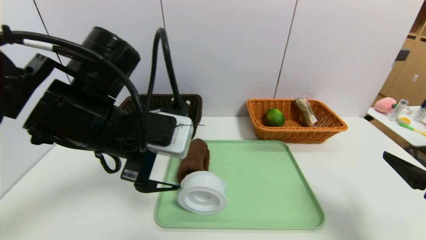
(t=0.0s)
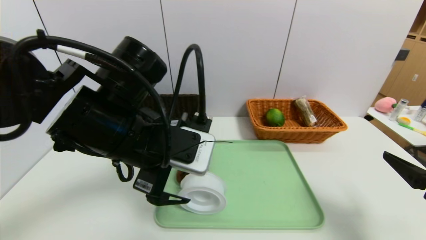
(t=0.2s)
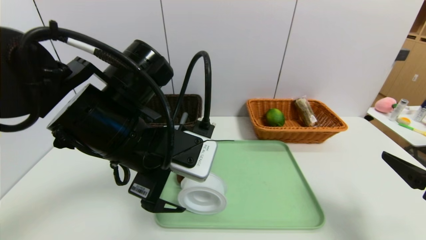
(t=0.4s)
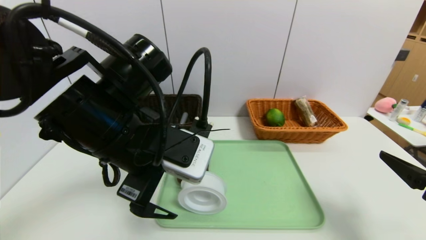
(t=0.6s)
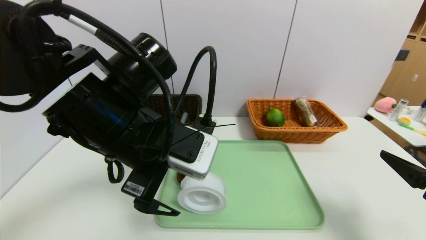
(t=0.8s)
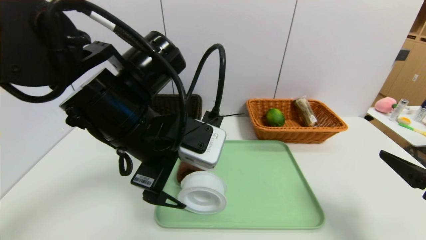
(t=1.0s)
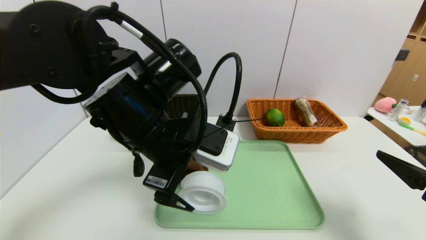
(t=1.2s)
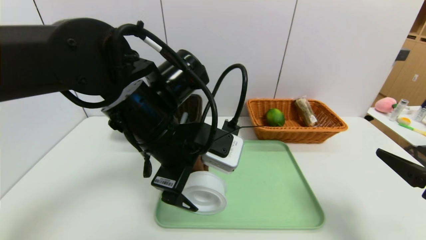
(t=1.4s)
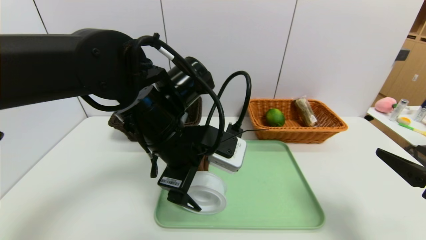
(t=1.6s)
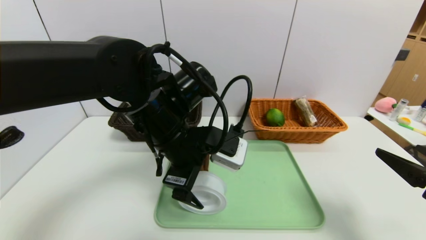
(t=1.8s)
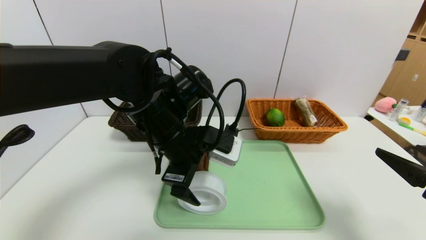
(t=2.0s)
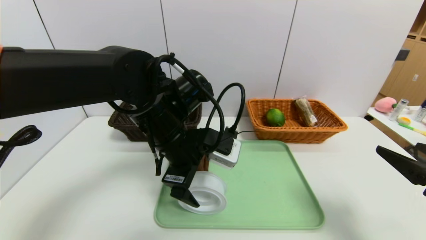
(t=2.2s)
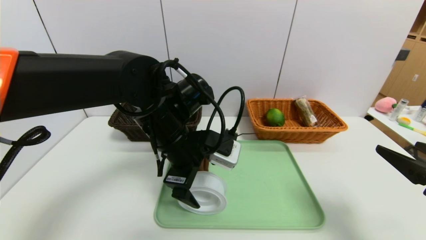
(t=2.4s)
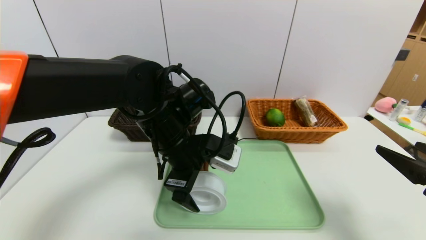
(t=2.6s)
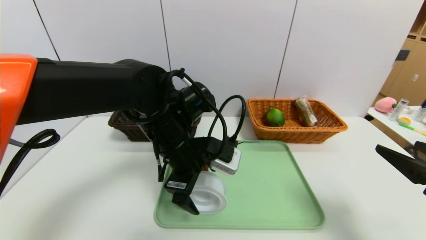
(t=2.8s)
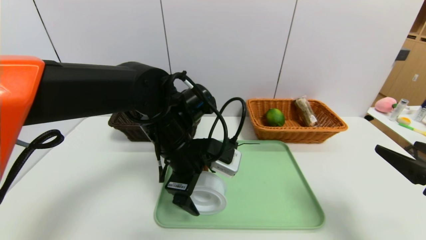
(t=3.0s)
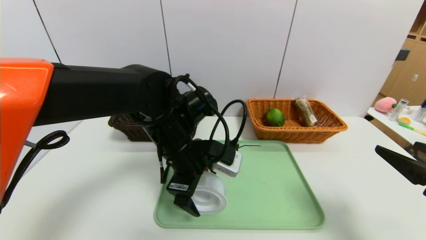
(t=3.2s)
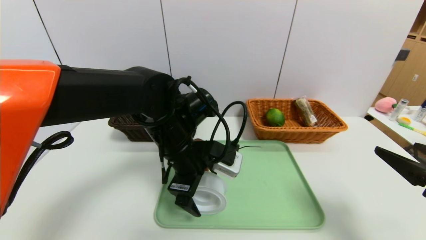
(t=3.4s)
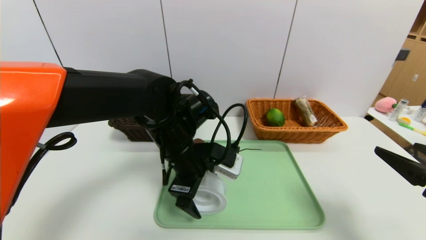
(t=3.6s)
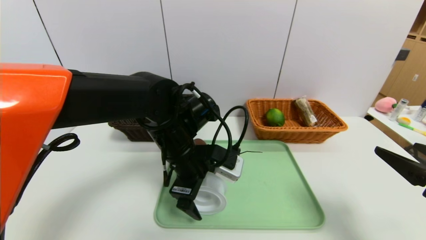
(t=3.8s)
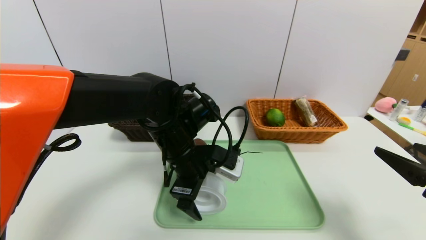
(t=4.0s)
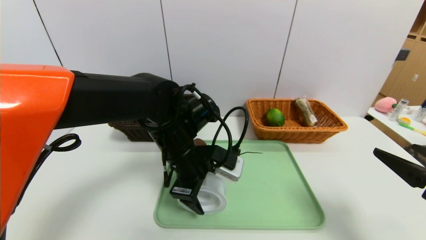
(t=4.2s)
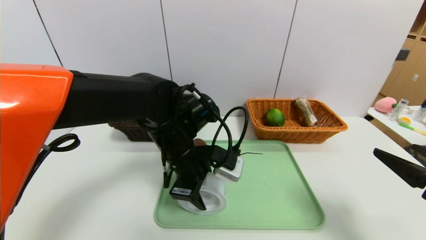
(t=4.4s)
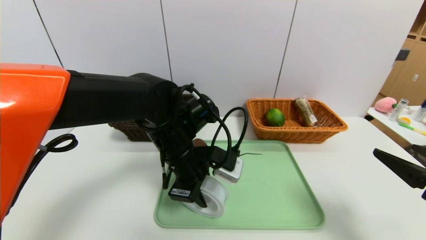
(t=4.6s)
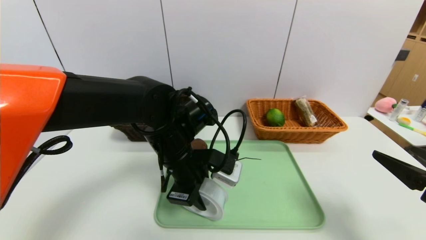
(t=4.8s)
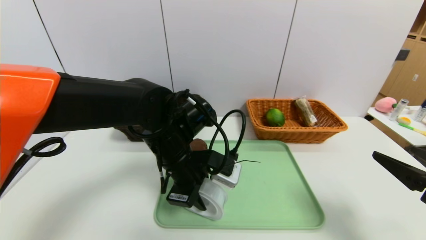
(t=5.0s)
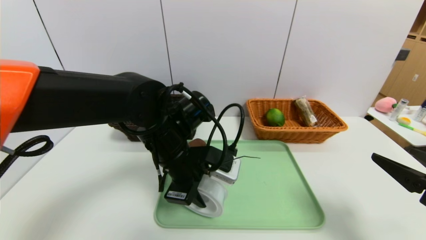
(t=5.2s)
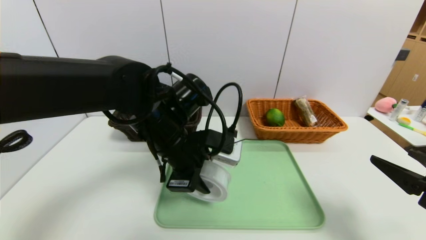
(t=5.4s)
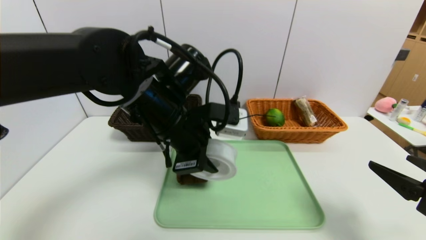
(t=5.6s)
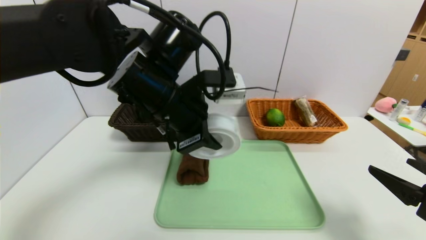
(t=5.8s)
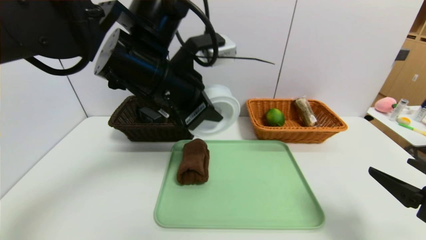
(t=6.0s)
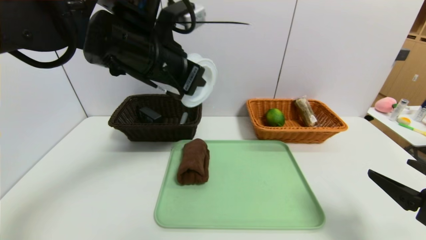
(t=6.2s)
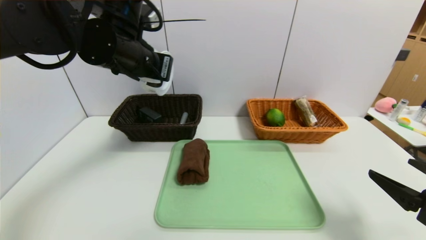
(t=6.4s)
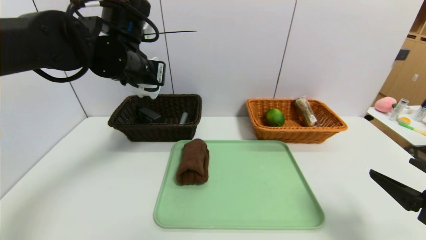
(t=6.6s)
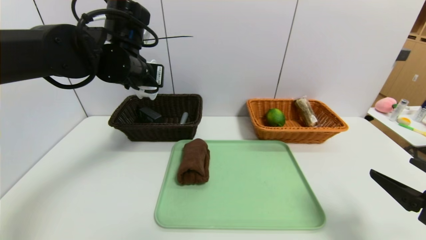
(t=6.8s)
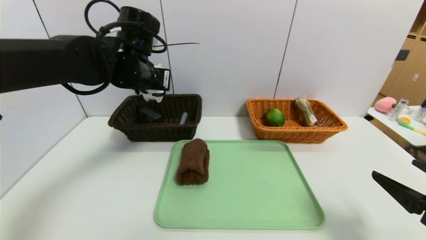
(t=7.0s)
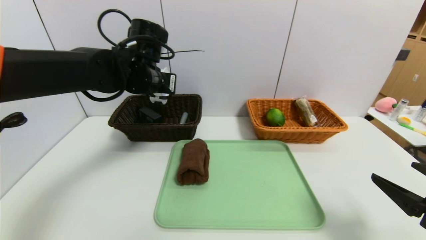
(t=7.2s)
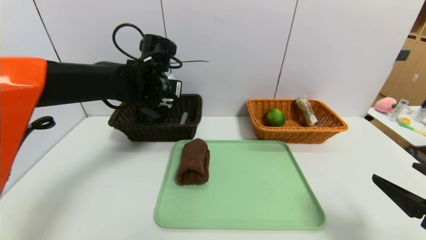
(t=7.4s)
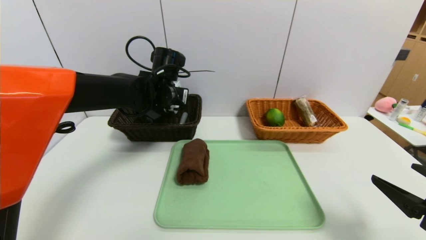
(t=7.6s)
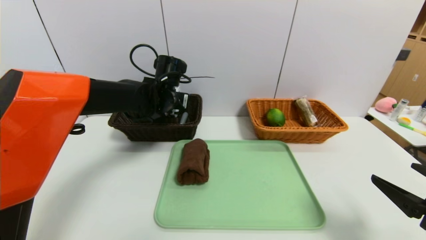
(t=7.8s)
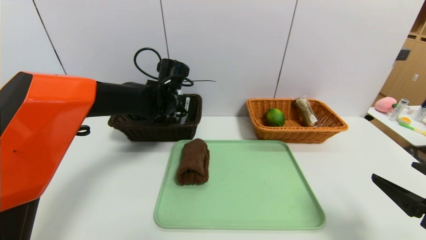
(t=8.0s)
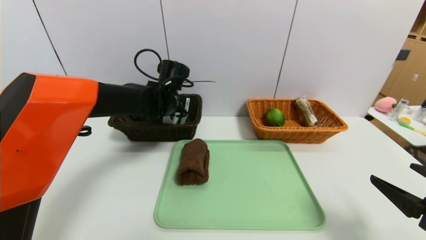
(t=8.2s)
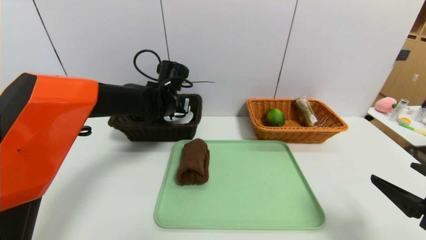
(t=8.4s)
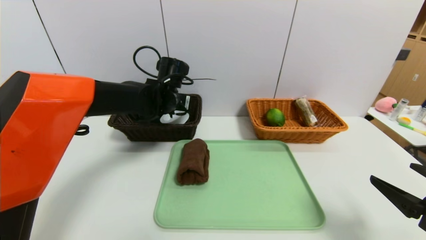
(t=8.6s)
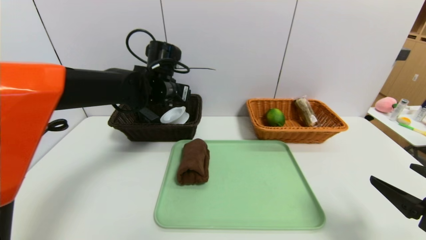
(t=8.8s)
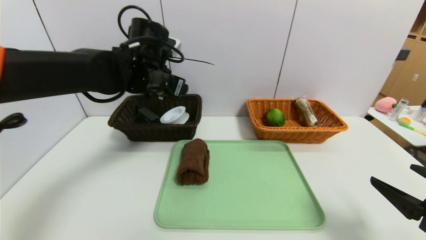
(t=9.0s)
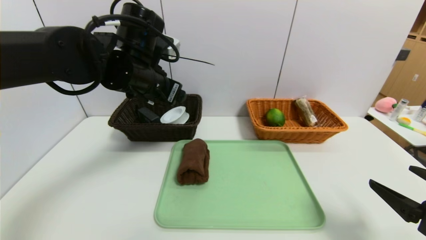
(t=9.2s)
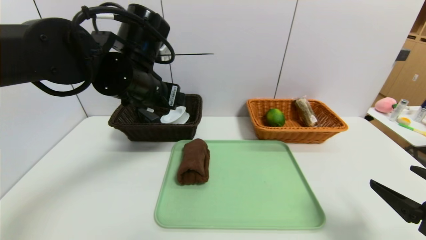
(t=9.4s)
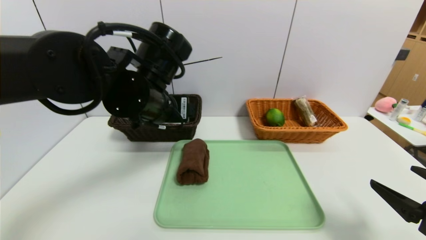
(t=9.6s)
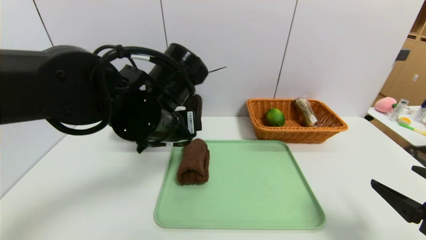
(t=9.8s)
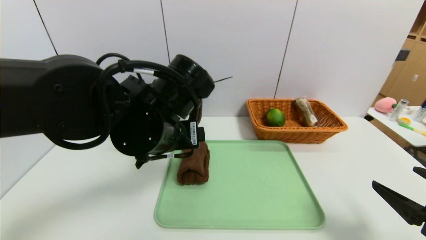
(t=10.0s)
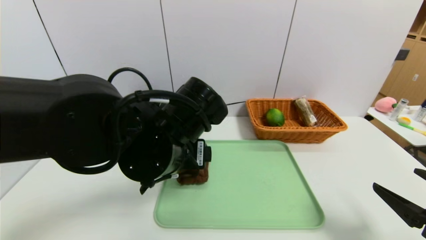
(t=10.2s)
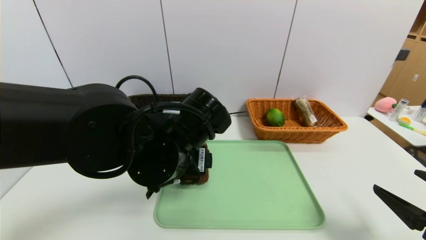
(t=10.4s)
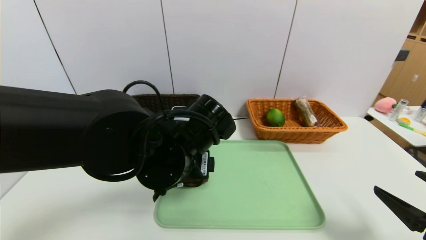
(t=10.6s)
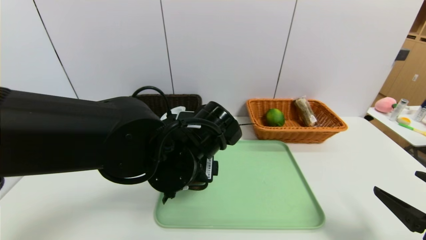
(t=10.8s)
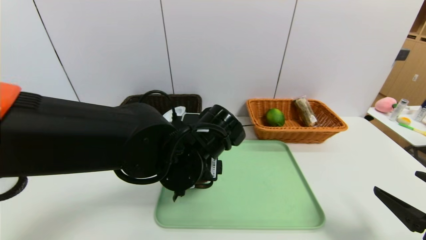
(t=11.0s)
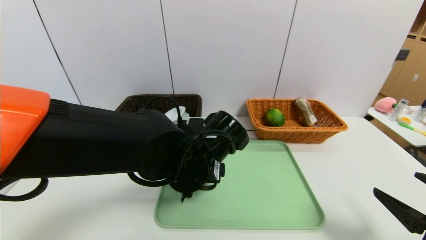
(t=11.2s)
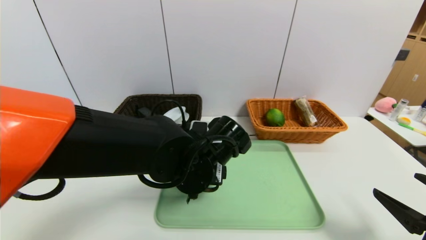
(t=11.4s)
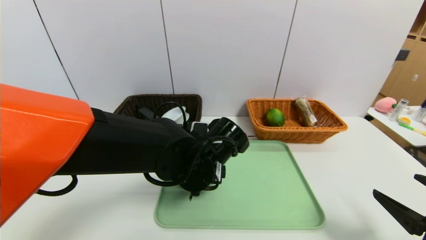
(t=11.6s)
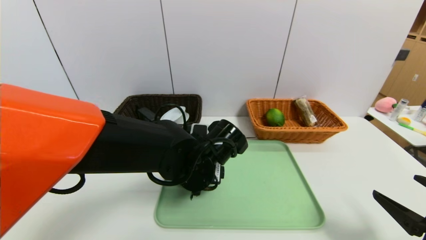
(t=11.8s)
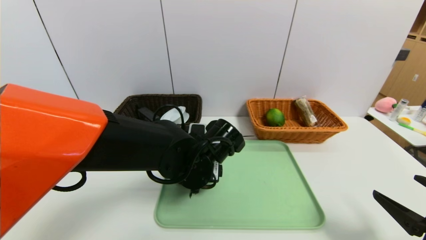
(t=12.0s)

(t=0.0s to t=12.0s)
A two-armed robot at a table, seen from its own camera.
Task of the whole recording: place the food in the right basket with the right gripper, and place the non food items in the left basket with the left gripper.
Step, t=0.0s - t=8.4s: Grasp the tape and put it in the left basket.
t=0.0s - t=1.6s: The left gripper shifts some 5 cm to the right.
t=1.6s - t=3.0s: The left gripper changes place by roughly 5 cm.
t=3.0s - t=4.4s: The left gripper closes its fingers.
t=4.4s - t=6.0s: The left gripper travels upward by roughly 15 cm.
t=6.0s - t=7.6s: The left gripper travels forward and downward by approximately 15 cm.
t=7.6s - t=9.0s: The left gripper shifts some 5 cm upward, and opens its fingers.
t=9.0s - t=10.4s: The left gripper shifts some 20 cm backward, to the right and downward.
t=10.4s - t=12.0s: The left gripper goes approximately 5 cm downward.

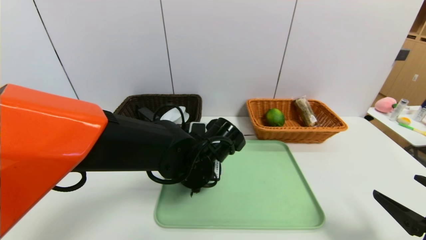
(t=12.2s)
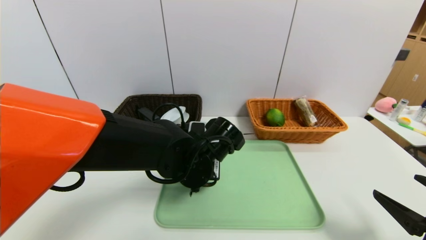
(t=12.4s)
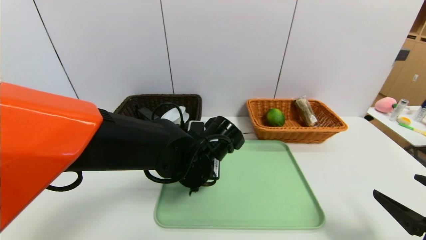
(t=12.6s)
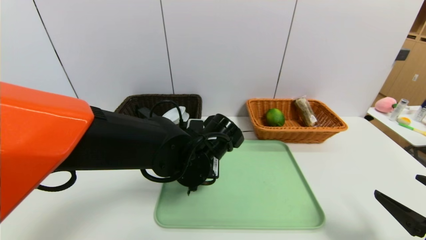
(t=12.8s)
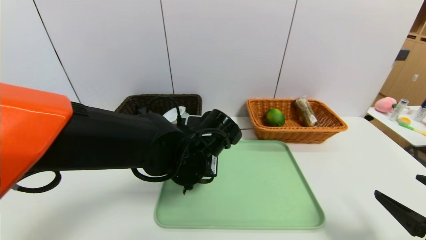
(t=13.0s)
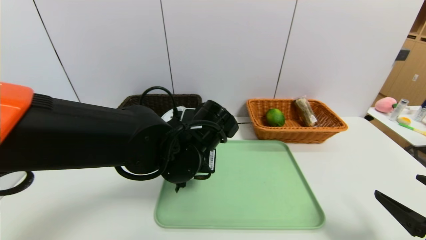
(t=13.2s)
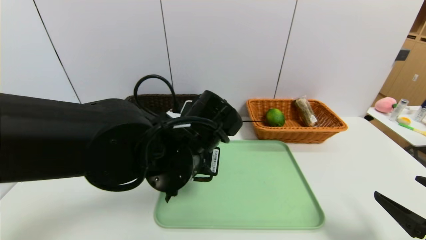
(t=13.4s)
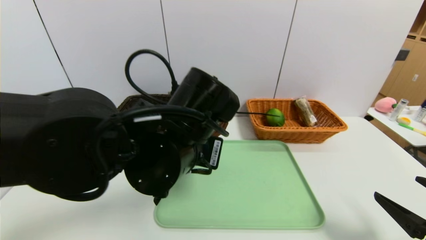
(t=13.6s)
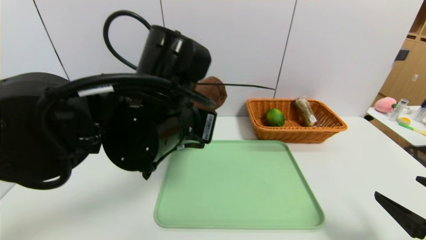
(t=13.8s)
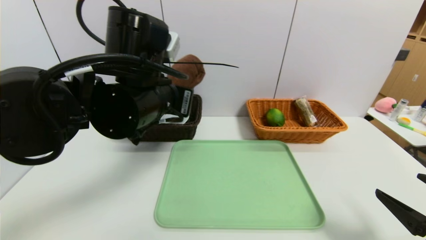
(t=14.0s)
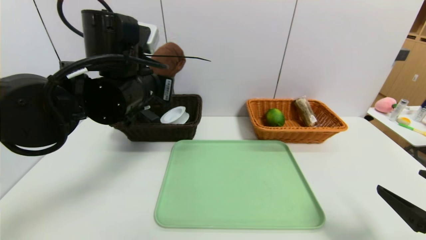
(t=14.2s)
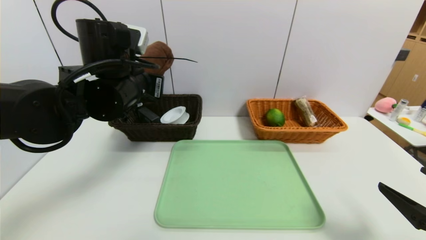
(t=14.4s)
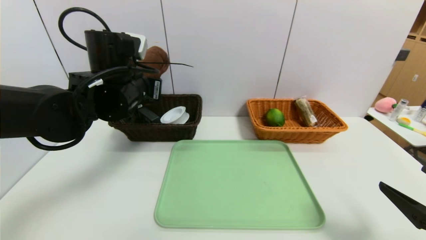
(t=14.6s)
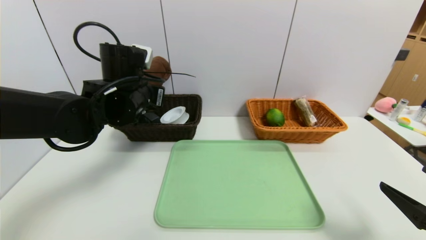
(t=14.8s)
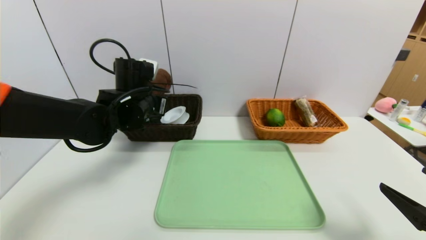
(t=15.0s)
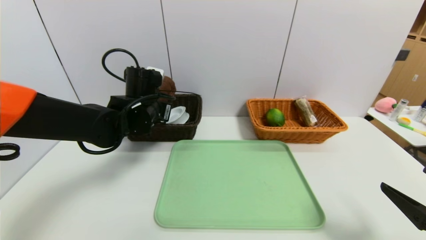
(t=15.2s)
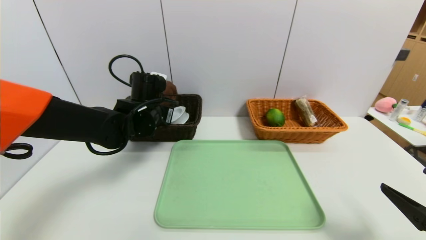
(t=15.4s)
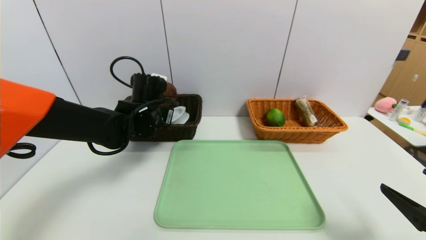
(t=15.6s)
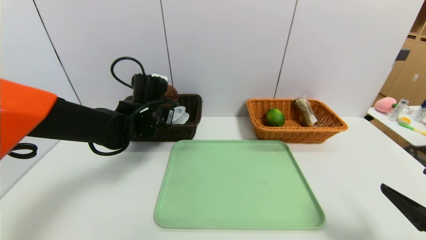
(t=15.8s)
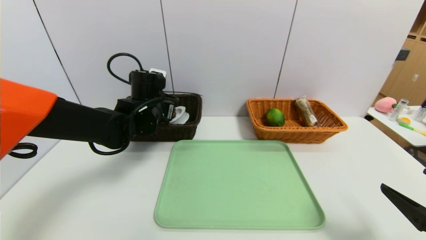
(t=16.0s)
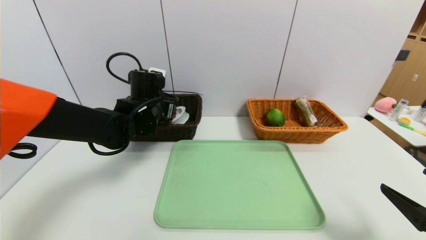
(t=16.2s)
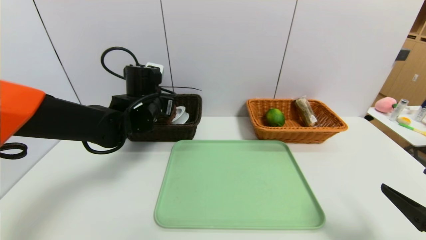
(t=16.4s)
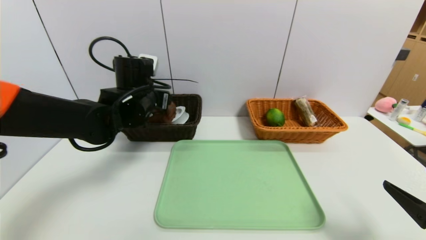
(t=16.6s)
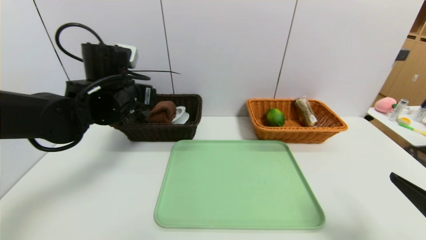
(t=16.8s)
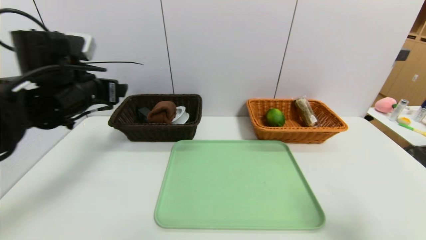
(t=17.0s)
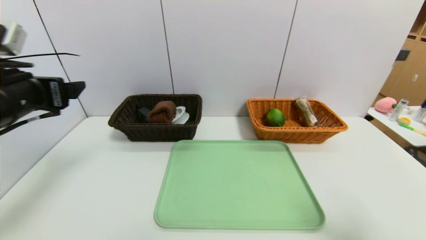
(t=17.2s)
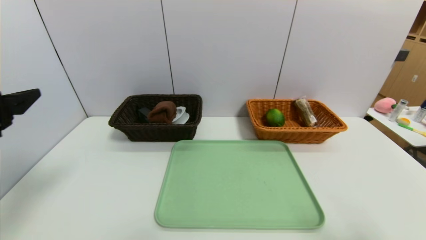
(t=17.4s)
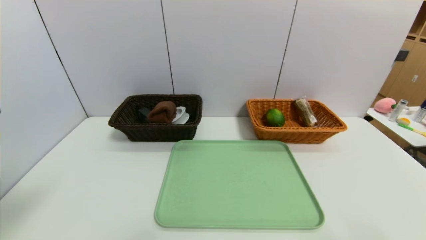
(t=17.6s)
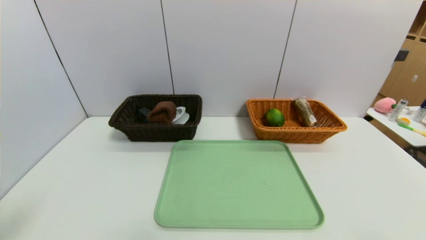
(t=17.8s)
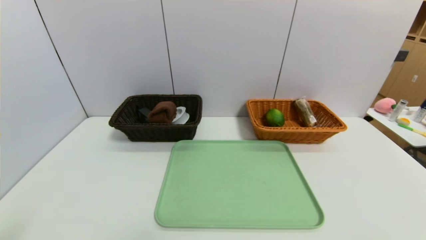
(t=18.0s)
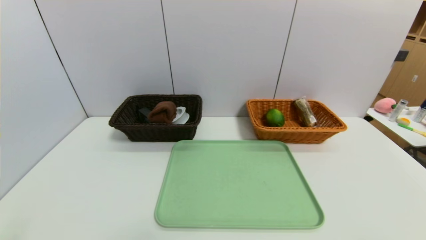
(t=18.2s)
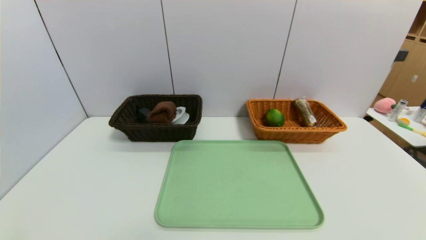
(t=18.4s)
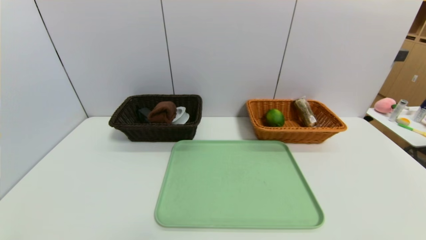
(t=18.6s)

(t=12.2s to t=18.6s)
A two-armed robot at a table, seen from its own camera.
Task of the whole recording: place the food in the right basket with the right gripper, and place the non food items in the left basket with the left gripper.
Step, t=12.2s - t=16.2s: Grasp the brown towel and put it in the left basket.
t=12.2s - t=13.8s: The left gripper is displaced upward and backward by approximately 15 cm, and closes its fingers.
t=13.8s - t=15.4s: The left gripper goes some 20 cm forward, downward and to the left.
t=15.4s - t=17.0s: The left gripper shifts some 15 cm to the left, upward and backward, and opens up.
t=17.0s - t=18.6s: The left gripper is displaced backward by some 35 cm. Meanwhile the right gripper shifts roughly 15 cm backward.
